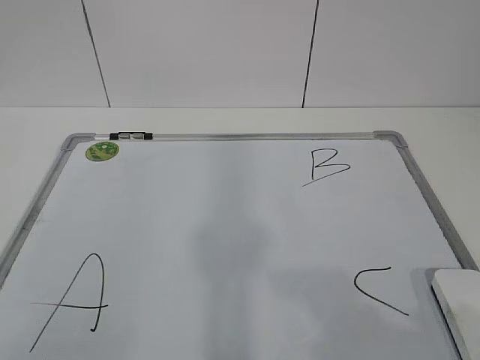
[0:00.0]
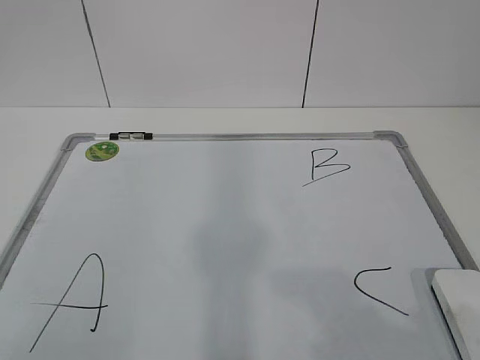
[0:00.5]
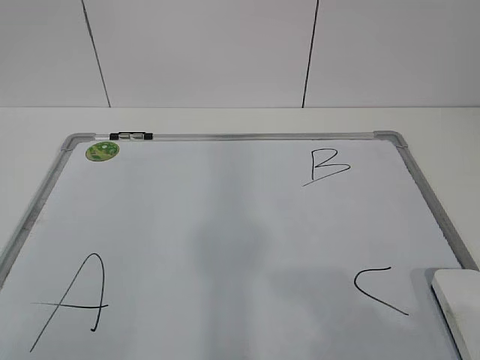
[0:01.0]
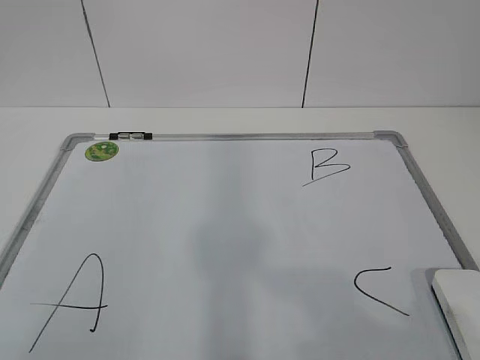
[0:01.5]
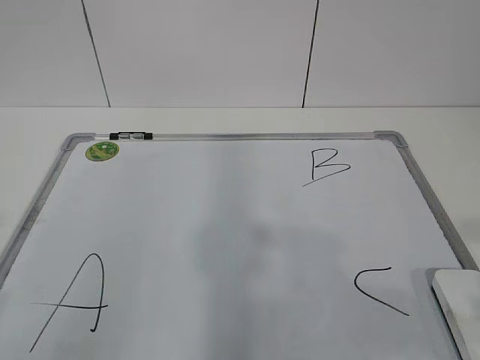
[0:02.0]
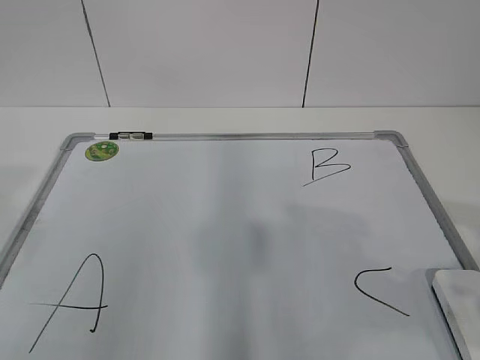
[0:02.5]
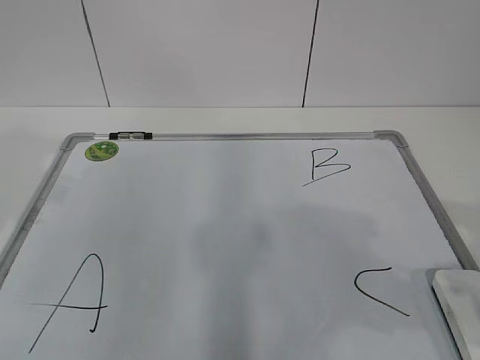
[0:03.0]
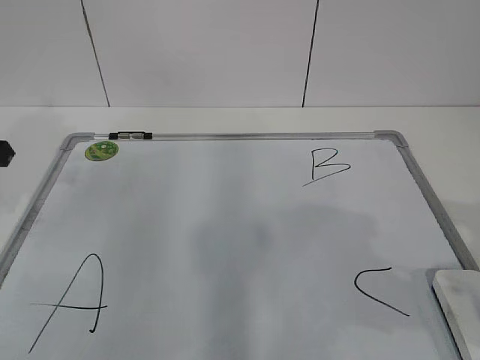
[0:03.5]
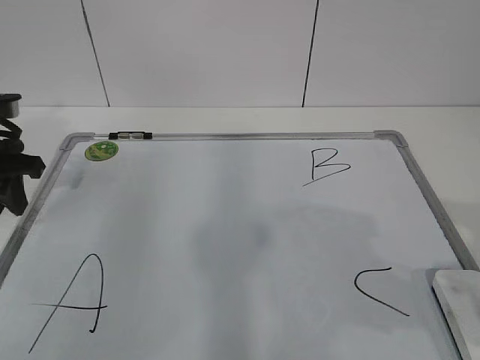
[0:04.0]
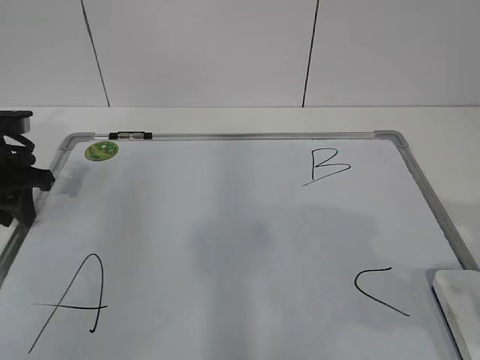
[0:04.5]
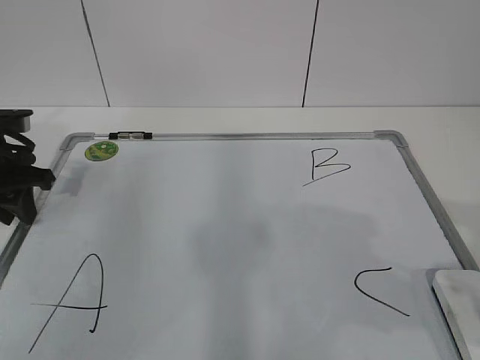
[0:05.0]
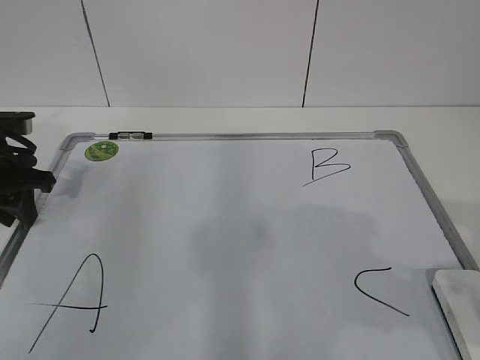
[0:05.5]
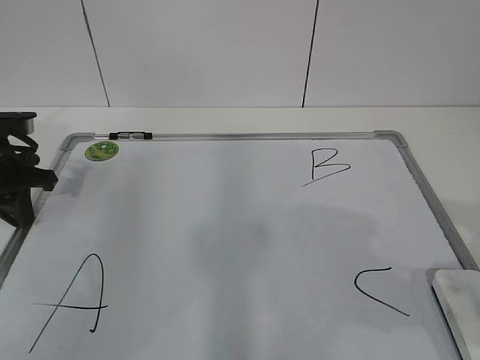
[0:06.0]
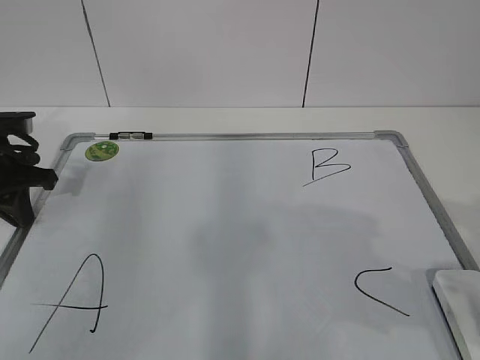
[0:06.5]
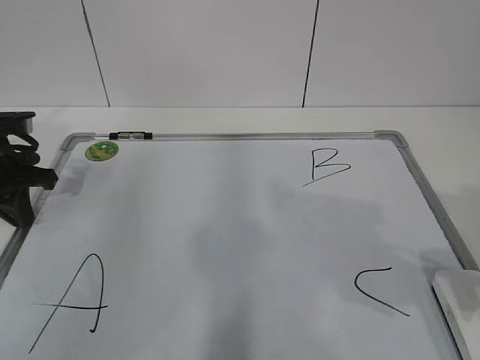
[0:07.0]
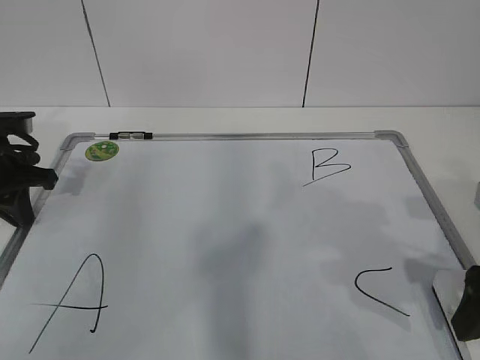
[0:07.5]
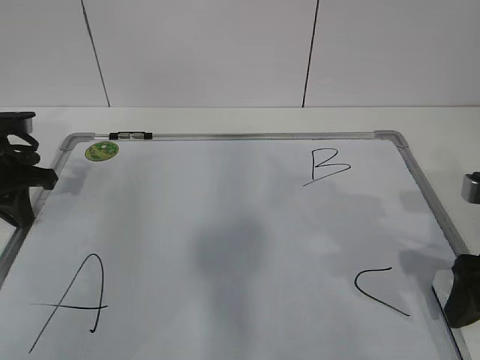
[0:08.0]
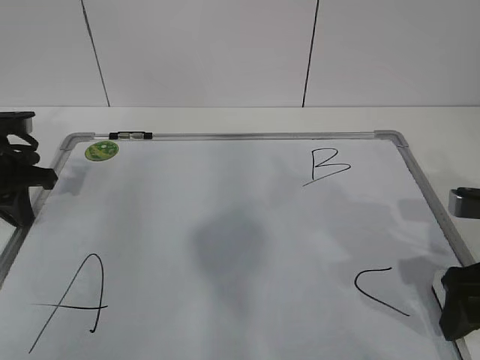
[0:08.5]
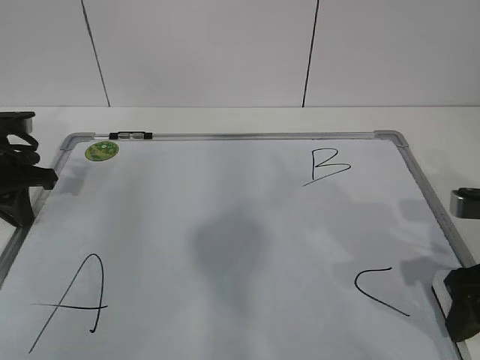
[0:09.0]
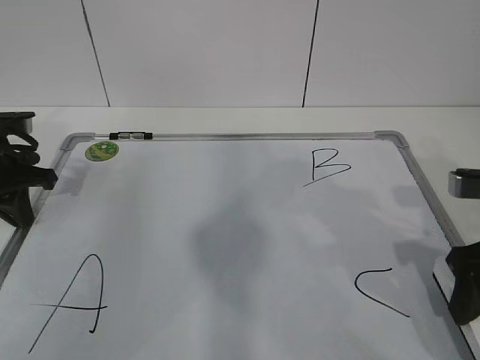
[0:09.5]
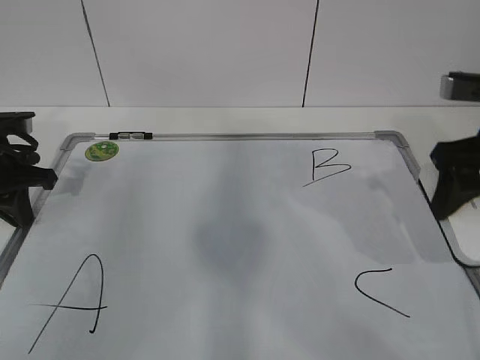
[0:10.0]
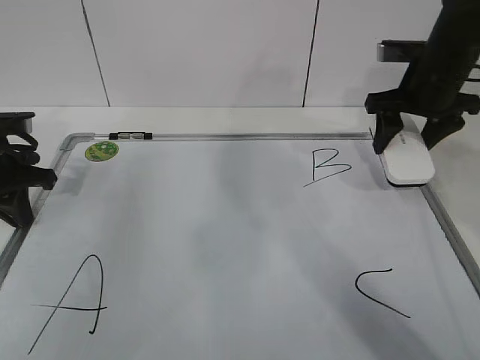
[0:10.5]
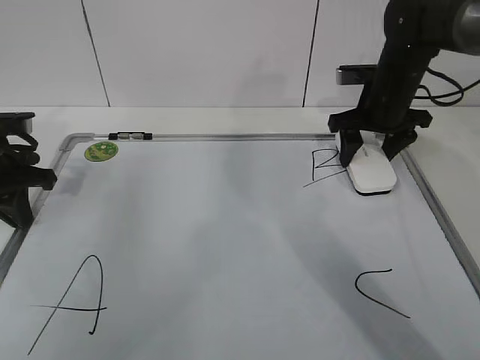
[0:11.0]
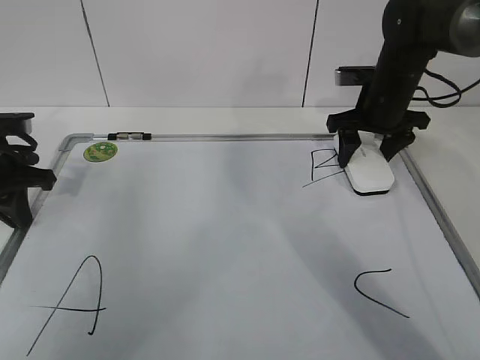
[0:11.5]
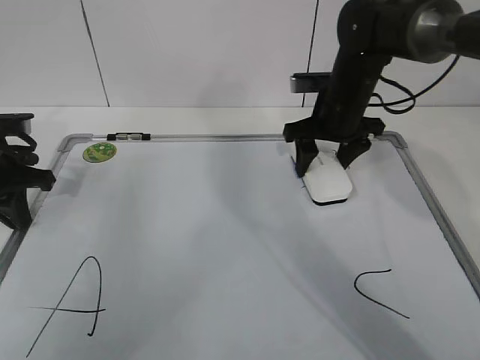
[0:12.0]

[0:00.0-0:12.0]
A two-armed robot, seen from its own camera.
Task of the whole recording: pick up the eraser on the blackboard and erase the letter "B".
Step, 0:00.0 to 0:04.5: Hold the drawing board steady with your left hand.
Step, 0:05.5 to 0:07.5: Grab the eraser with your right hand.
0:02.0 to 0:04.0: The left gripper travels forward by about 30 cm.
0:04.0 to 0:06.0: The left gripper closes.
0:06.0 to 0:08.0: The right gripper goes about 10 cm forward and downward, and opens its fingers.
0:08.0 to 0:10.0: The right gripper goes about 10 cm forward and upward, and closes.
0:10.0 to 0:12.0: The right gripper shifts approximately 20 cm forward, to the left and downward.

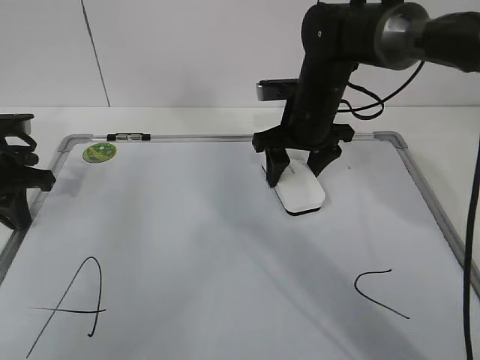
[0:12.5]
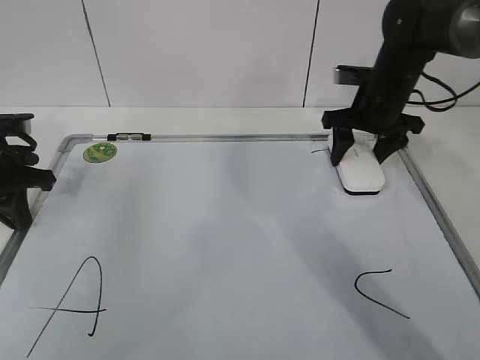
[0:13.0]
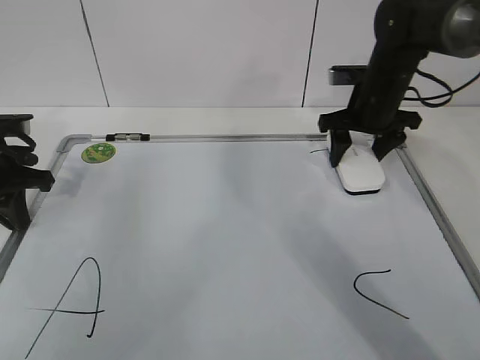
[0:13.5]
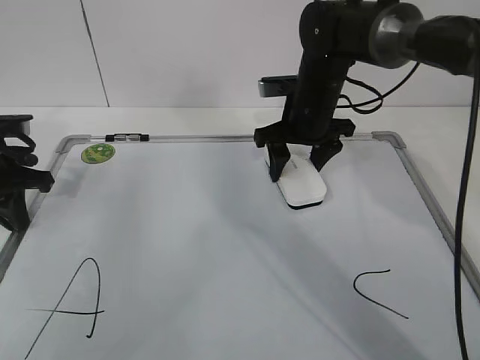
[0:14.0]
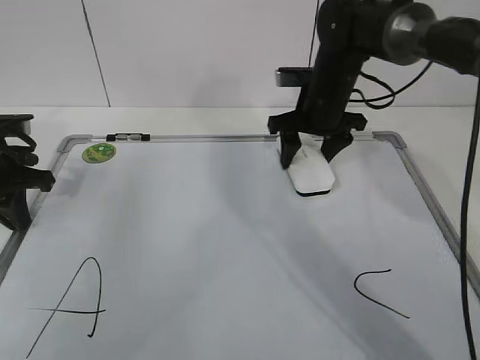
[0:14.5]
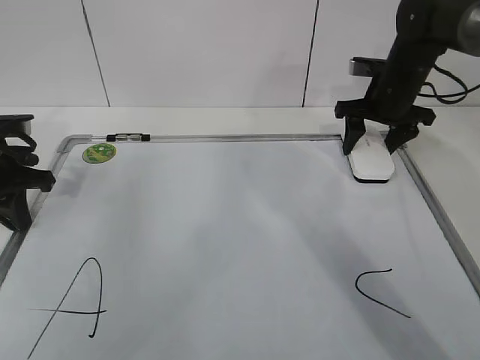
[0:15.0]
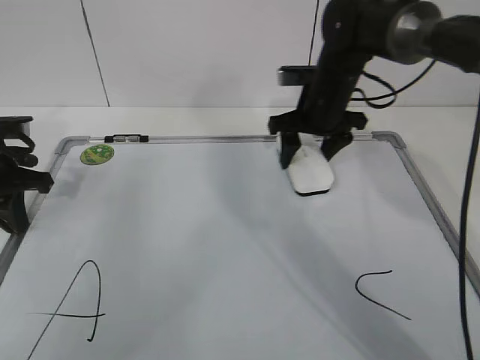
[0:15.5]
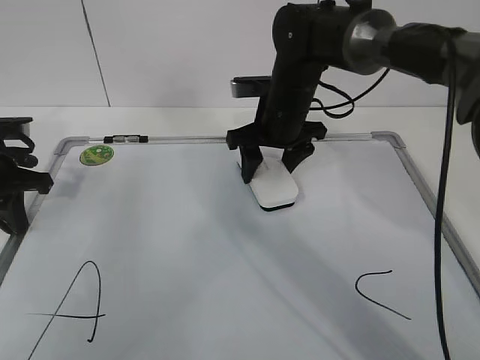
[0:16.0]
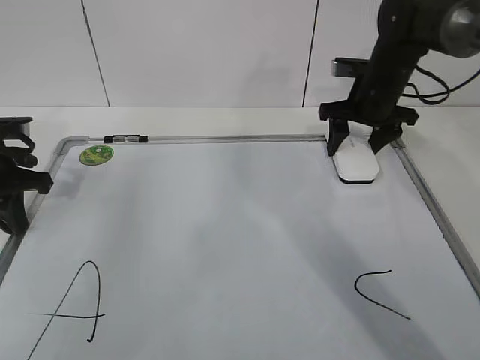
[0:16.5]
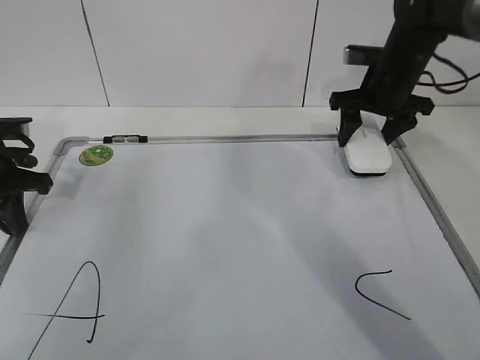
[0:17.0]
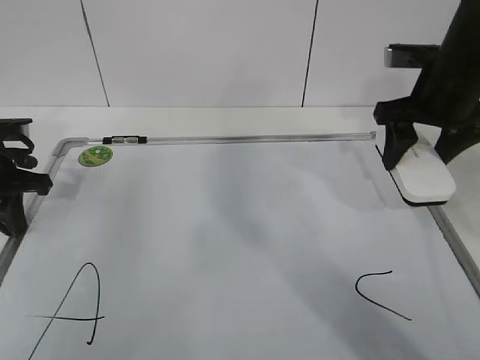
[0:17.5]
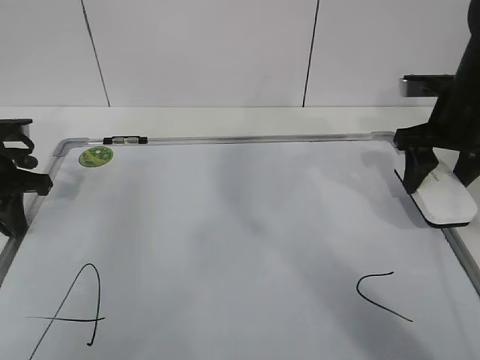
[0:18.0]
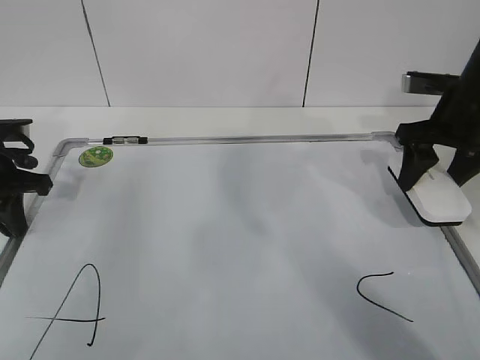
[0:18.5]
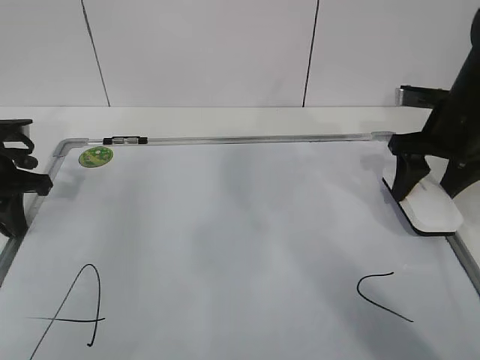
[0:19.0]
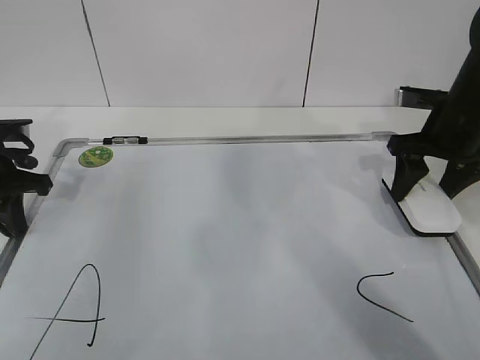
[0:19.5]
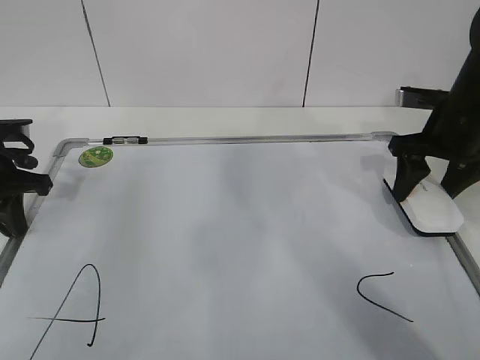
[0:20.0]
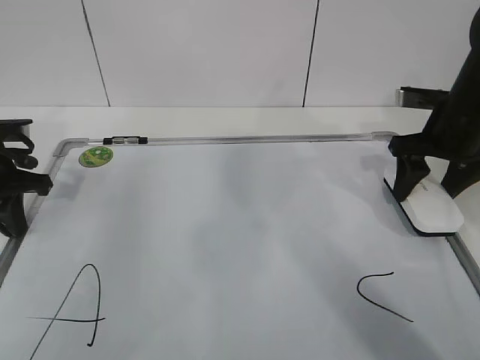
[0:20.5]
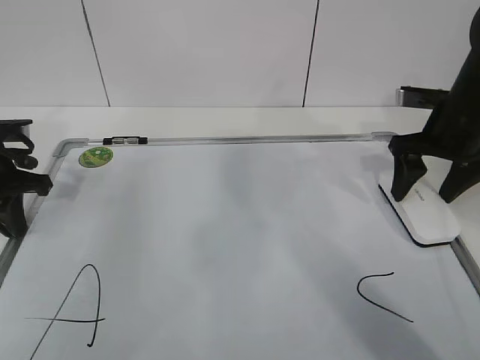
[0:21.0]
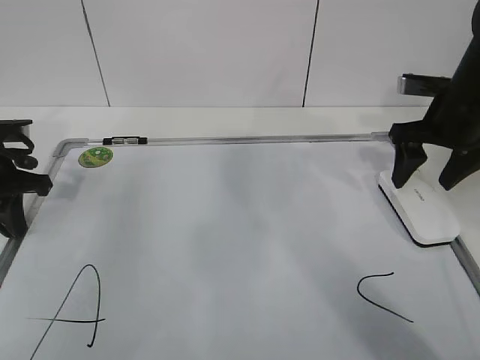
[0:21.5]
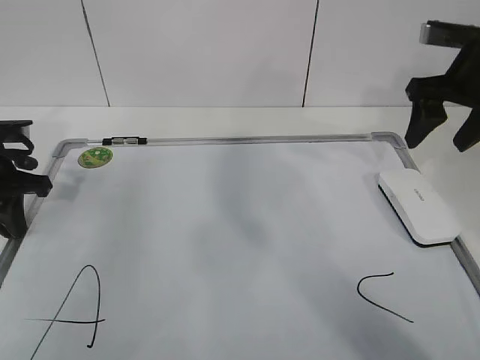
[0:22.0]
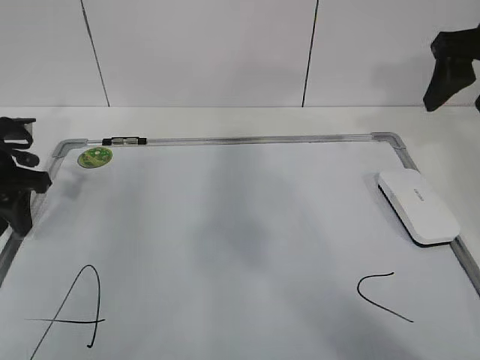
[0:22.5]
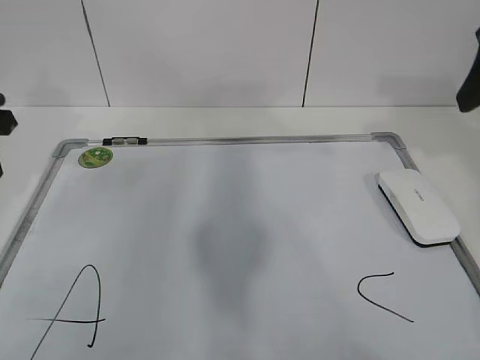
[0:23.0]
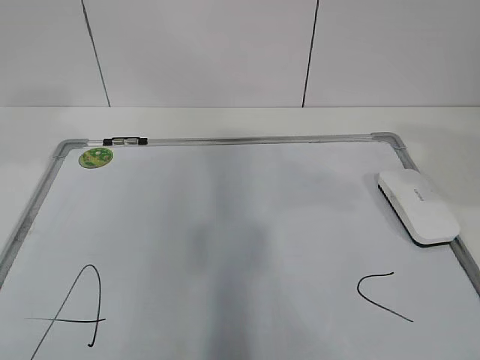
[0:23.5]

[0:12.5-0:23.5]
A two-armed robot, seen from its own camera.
Task of the whole recording: pick up the eraser on the blackboard and erase the letter "B".
Step, 0:14.0 to 0:17.0: Put down the eraser with your right hand.
0:12.5 to 0:14.5: The right gripper travels to the right and back again, approximately 10 cm each way.
0:14.5 to 0:16.0: The right gripper reaches about 10 cm to the right, then returns.
0:16.0 to 0:18.0: The right gripper is displaced to the right by roughly 20 cm.
0:18.0 to 0:20.0: There are only small adjustments of the grippers.
0:20.0 to 0:21.5: The right gripper opens up.
0:21.5 to 0:23.5: The right gripper heads backward and upward, covering some 25 cm, while the left gripper heads upward and backward, covering about 25 cm, and opens up.

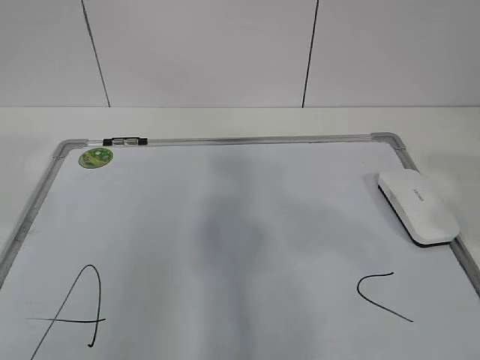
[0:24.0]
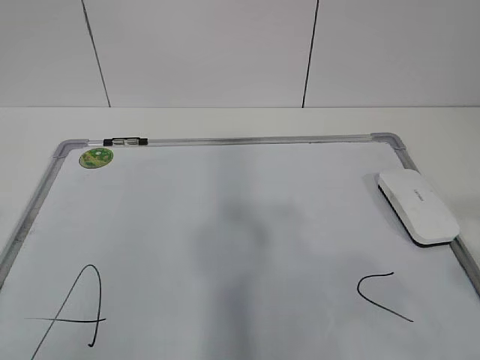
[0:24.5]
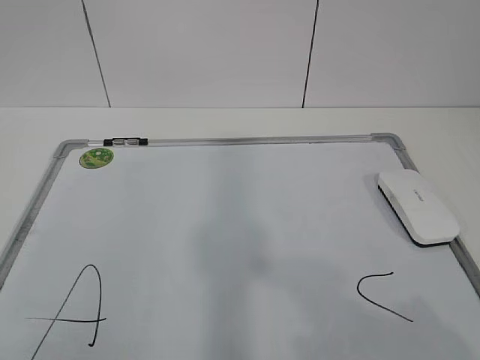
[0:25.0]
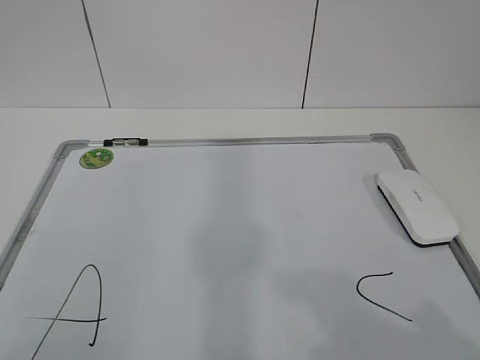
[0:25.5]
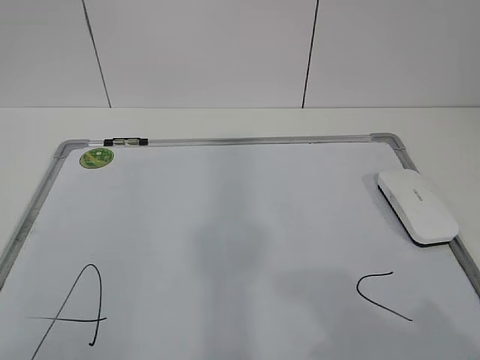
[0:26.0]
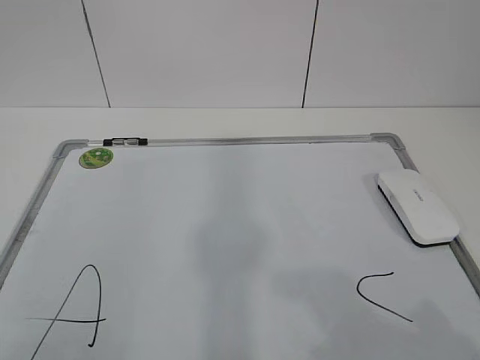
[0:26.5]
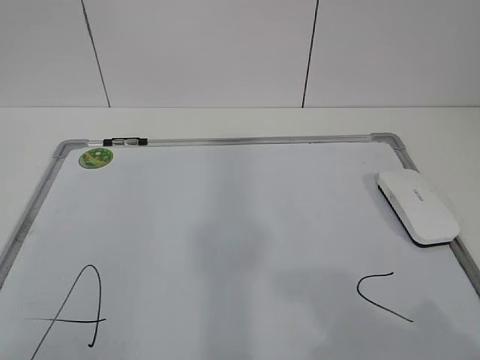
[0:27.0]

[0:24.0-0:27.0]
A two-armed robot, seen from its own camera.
Task of the whole recording: pick up the eraser on the blackboard and erase the letter "B".
0:24.0 to 0:25.5: The grippers both shift backward and downward by approximately 15 cm.
0:25.5 to 0:27.0: The two grippers keep their place.
